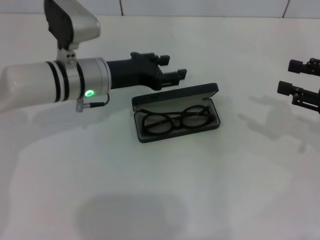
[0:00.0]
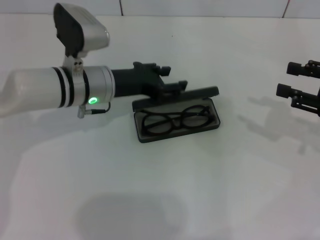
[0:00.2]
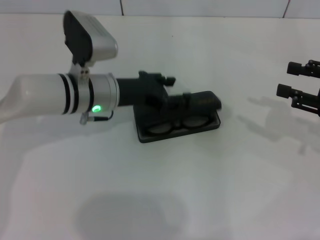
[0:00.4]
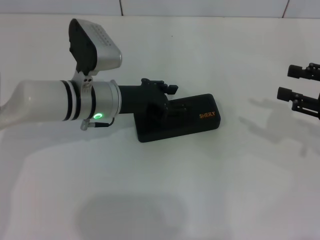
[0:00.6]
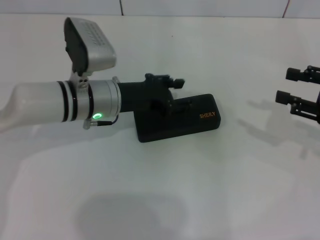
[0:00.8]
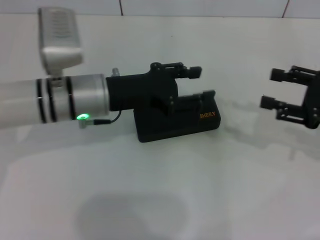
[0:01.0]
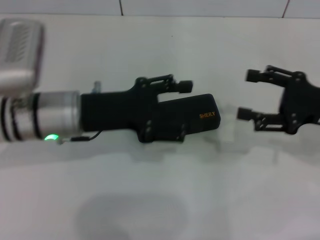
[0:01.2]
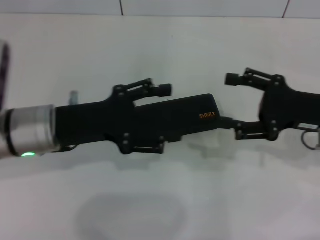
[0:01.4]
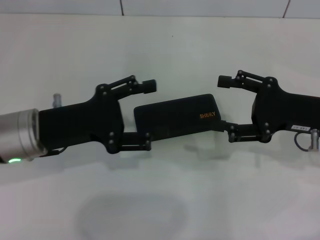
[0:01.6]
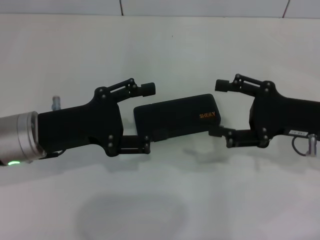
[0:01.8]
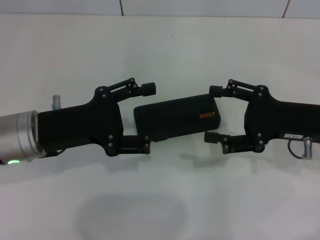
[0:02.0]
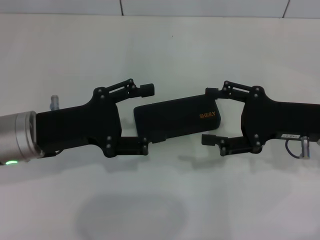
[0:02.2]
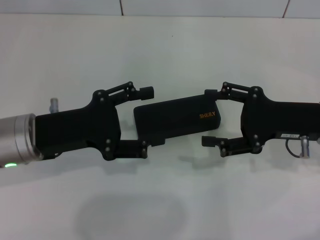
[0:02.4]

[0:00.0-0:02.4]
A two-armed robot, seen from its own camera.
0:00.0 to 0:01.2: The left gripper moves backward, about 5 cm. The right gripper ends up some 5 cm from where it was.
0:01.2 to 0:02.4: The left gripper shifts some 5 cm to the left, and opens its fingers.
